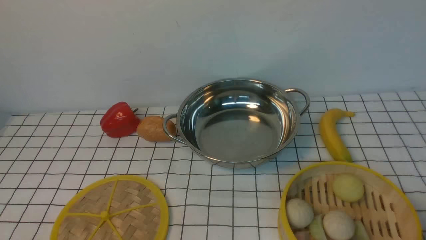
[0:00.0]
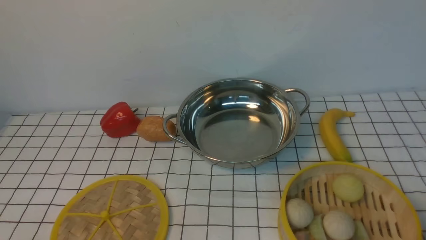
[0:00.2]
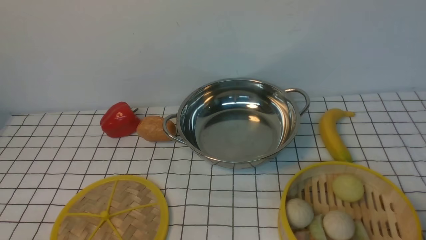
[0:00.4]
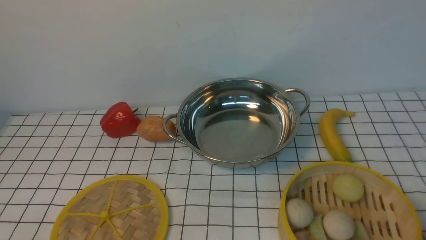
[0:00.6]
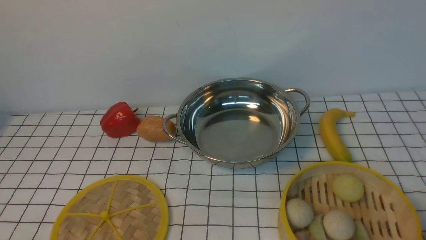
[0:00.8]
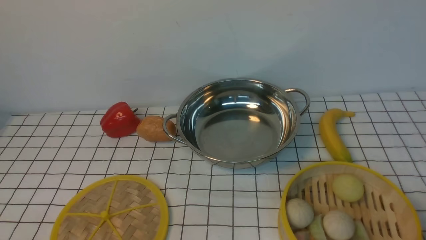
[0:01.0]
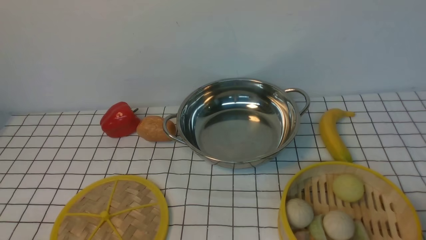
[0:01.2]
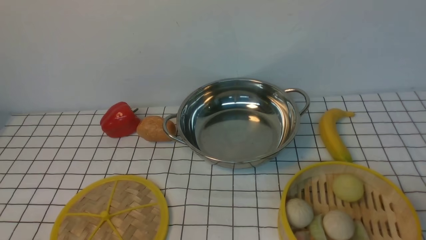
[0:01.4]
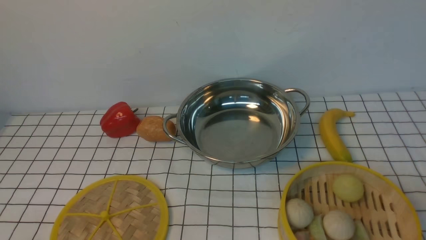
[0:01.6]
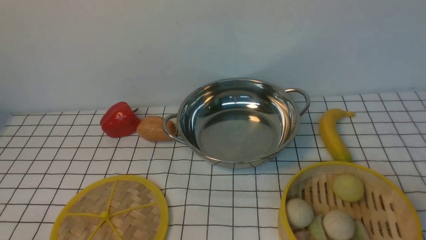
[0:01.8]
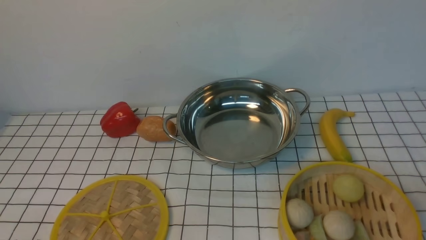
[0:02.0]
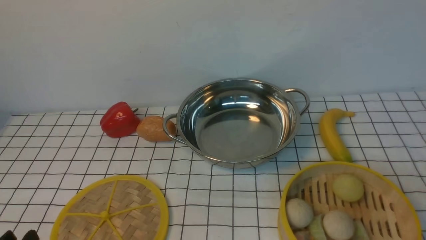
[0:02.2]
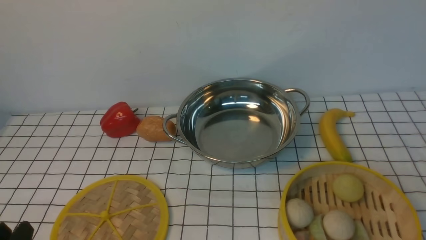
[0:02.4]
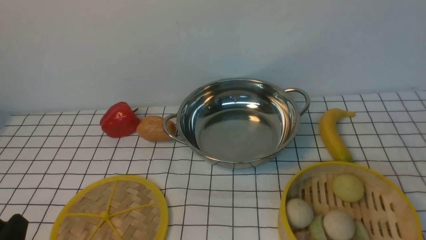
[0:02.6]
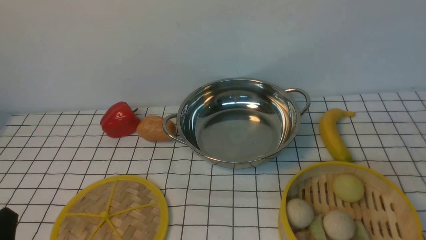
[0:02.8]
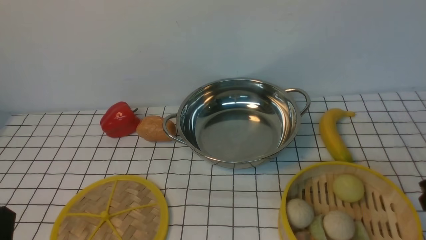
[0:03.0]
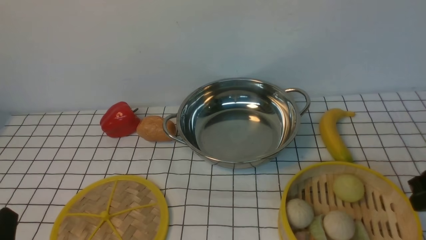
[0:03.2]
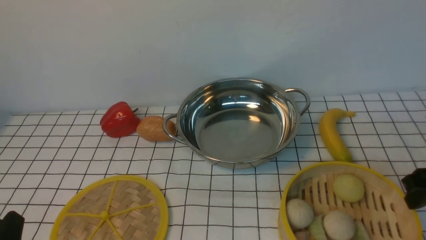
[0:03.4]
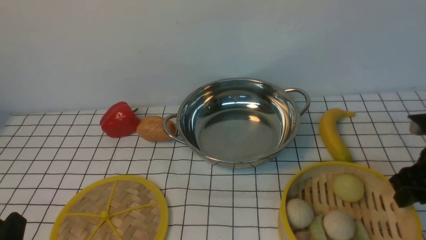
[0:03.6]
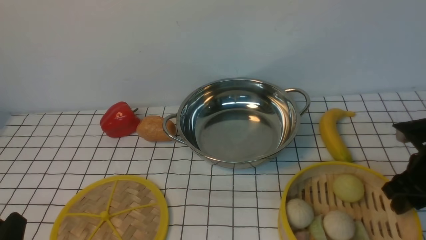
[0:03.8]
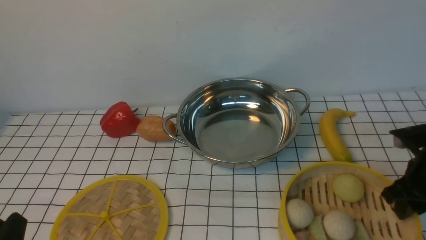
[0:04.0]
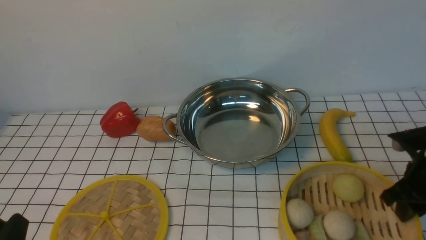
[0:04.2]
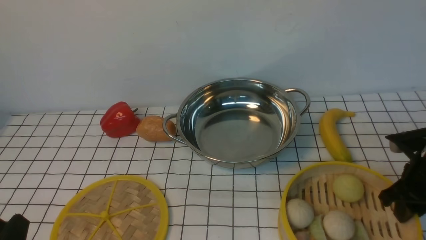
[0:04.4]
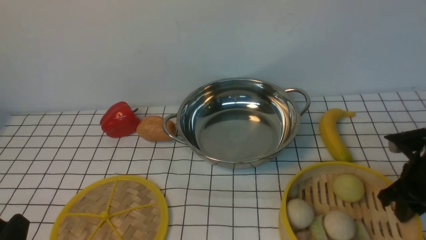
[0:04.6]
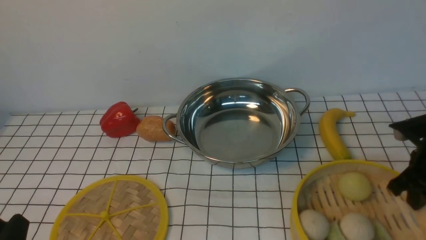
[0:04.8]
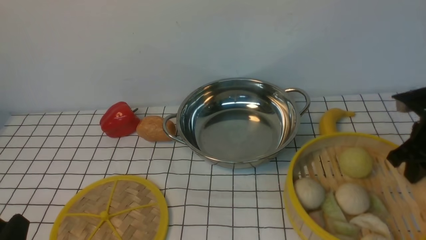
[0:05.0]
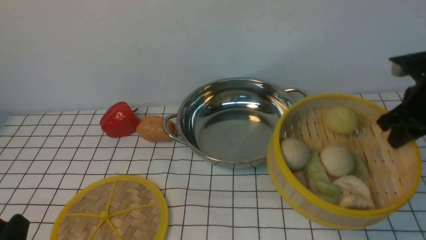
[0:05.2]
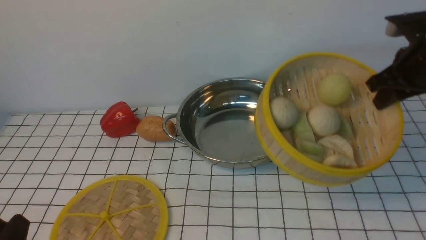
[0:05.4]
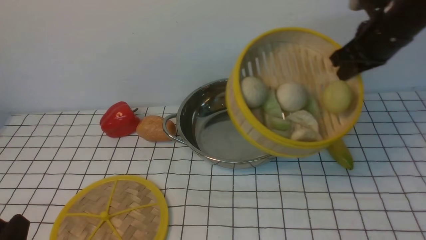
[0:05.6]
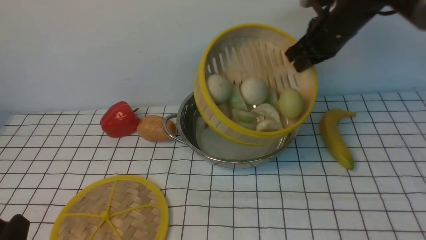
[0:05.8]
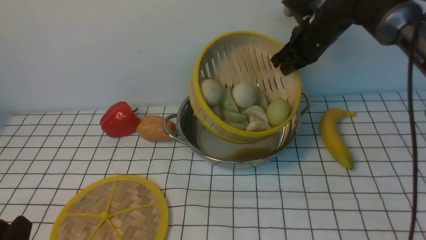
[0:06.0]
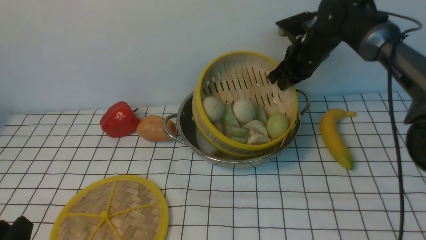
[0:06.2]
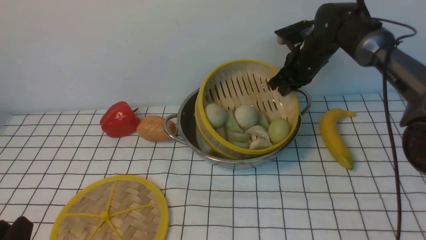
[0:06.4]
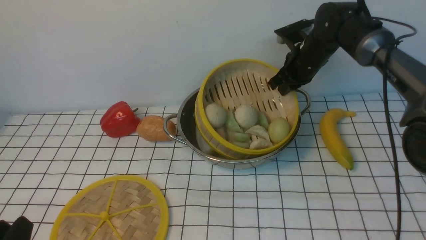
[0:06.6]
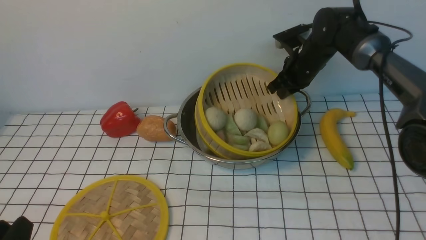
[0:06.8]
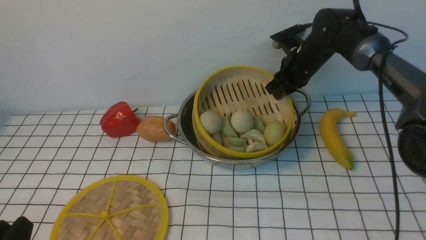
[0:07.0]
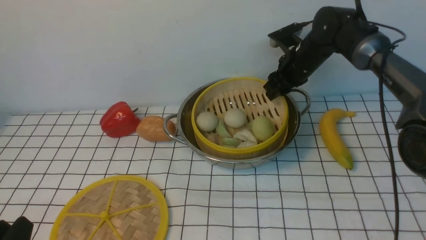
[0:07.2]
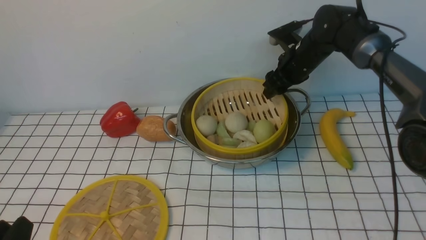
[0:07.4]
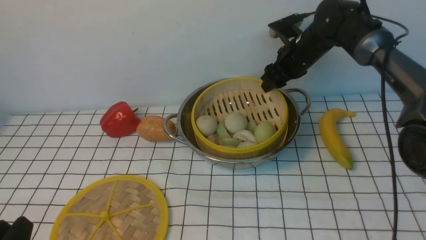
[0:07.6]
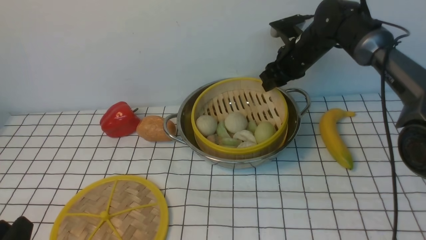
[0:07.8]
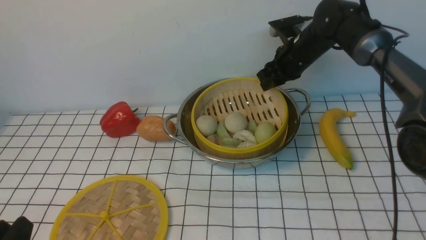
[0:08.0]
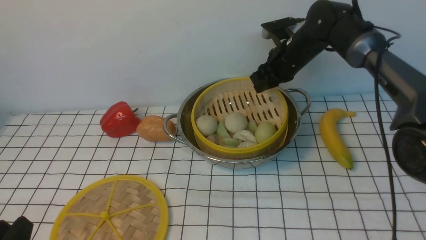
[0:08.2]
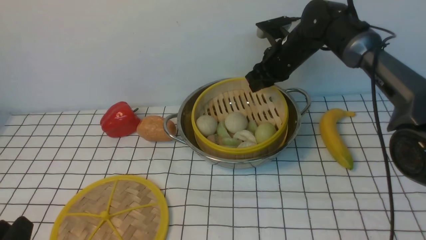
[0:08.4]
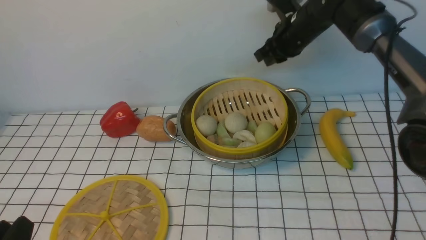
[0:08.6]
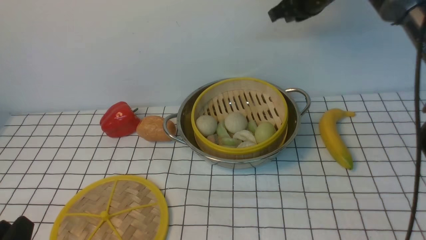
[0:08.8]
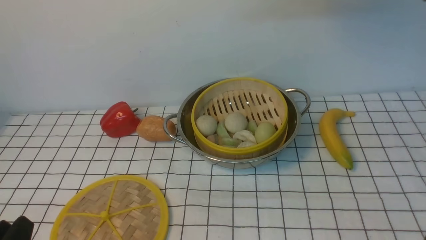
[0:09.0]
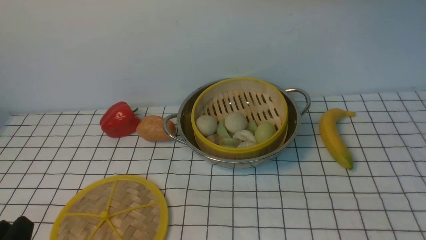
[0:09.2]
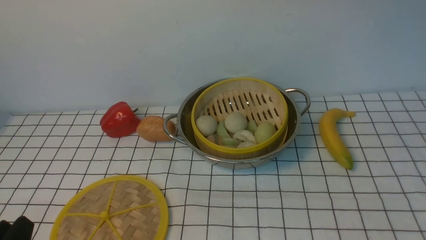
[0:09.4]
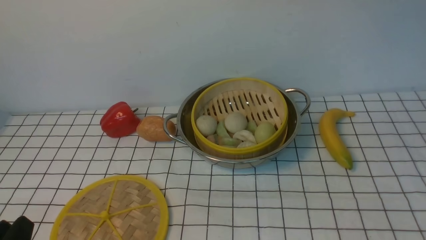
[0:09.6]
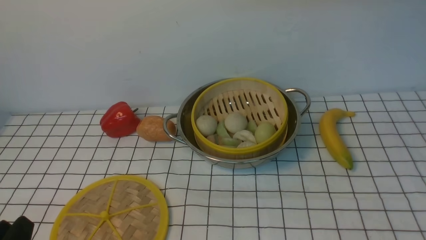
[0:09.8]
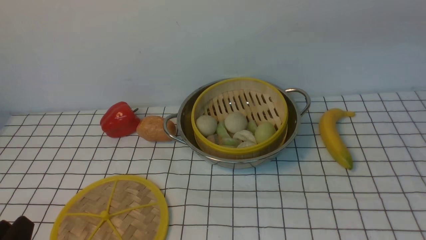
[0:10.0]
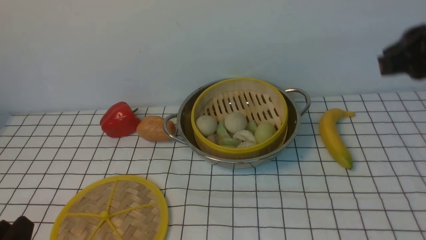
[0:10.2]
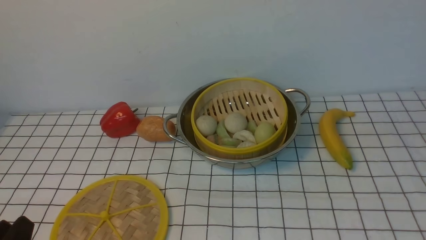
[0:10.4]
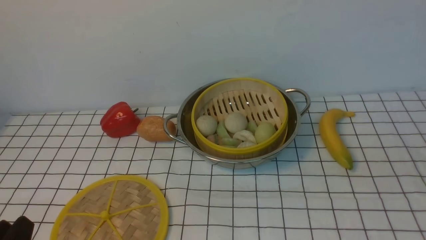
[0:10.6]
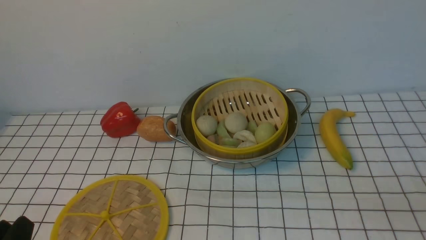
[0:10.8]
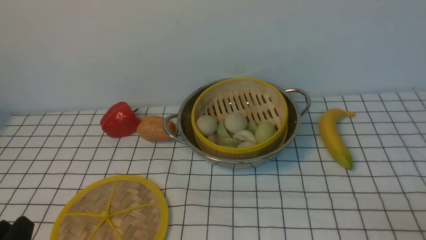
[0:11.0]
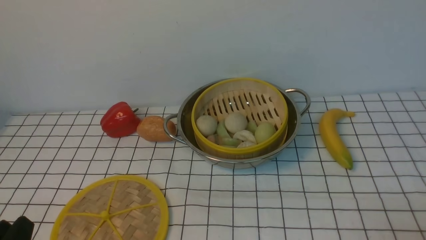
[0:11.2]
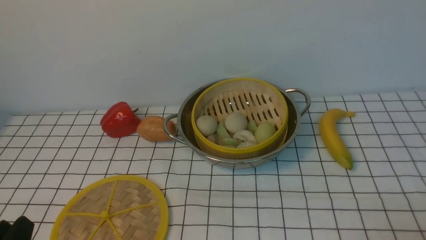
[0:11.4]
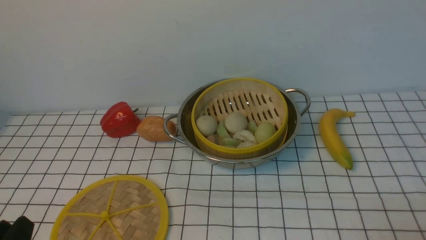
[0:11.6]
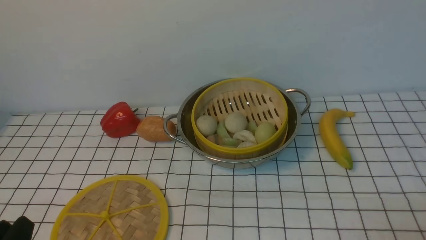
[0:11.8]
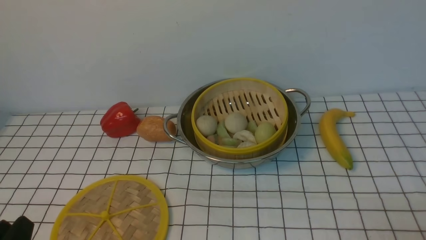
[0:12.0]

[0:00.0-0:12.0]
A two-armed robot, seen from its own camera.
Task of the whole recording: place the steamer in the pot on the white tablecloth, and put the lid on the steamer.
Step, 0:00.0 to 0:04.8: use the right arm to lift the steamer closest to it.
Step, 0:05.0 to 0:08.4: use the right arm to put the steamer into the iron steamer pot in the middle.
0:03.0 to 0:04.4: The right gripper shifts about 15 cm downward and forward.
0:04.4 to 0:06.0: The right gripper heads forward, to the left and upward, covering roughly 25 cm, and closes its fingers.
0:06.0 to 0:07.6: The right gripper is displaced downward by some 5 cm, and opens up.
0:07.6 to 0:09.0: The right gripper goes roughly 15 cm upward, and closes its fingers.

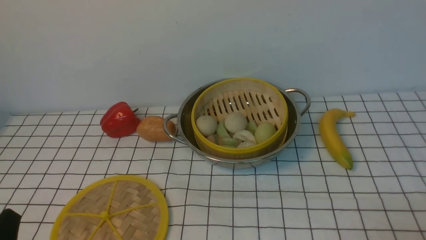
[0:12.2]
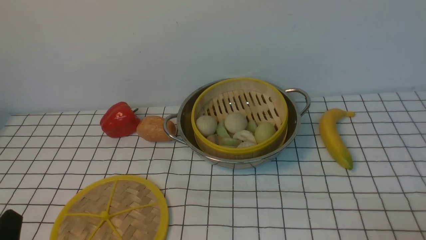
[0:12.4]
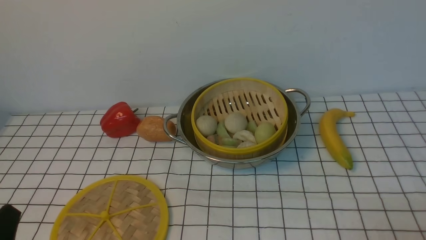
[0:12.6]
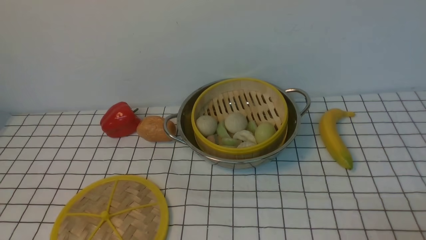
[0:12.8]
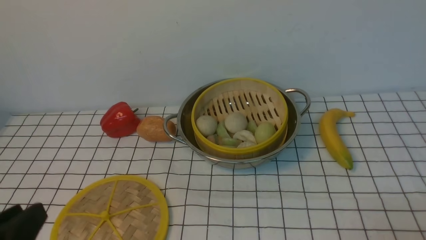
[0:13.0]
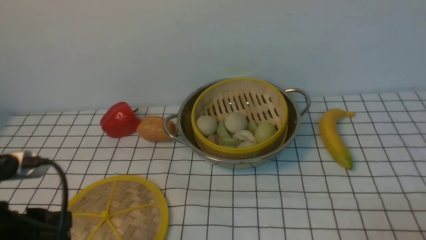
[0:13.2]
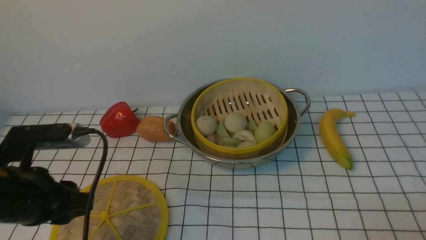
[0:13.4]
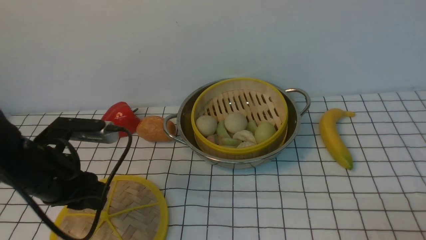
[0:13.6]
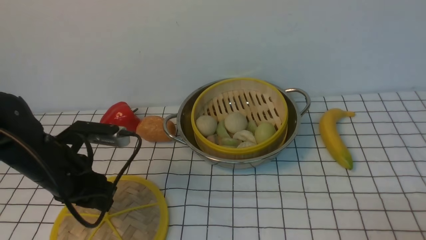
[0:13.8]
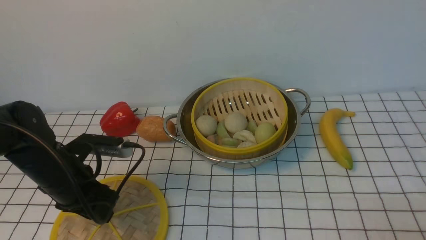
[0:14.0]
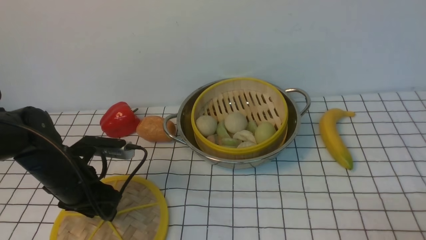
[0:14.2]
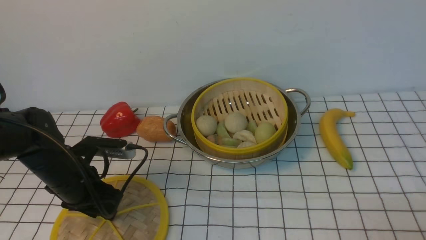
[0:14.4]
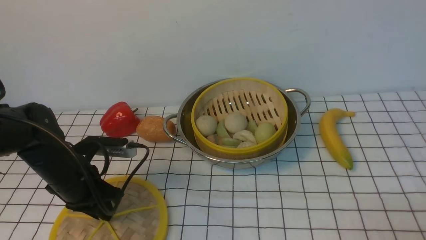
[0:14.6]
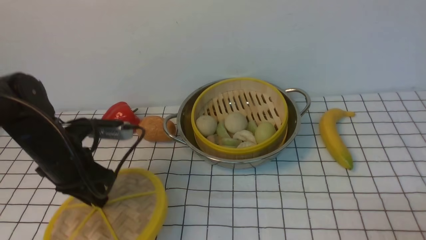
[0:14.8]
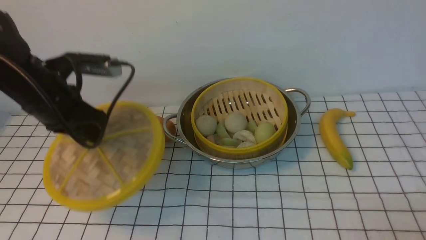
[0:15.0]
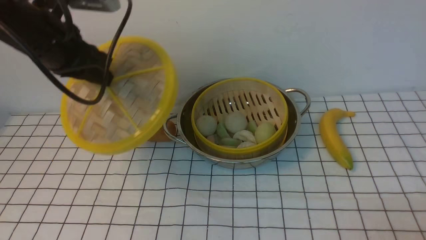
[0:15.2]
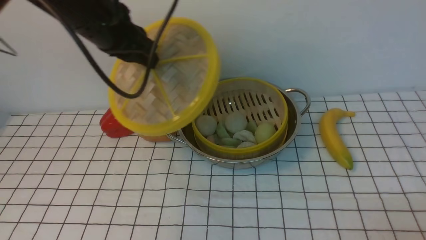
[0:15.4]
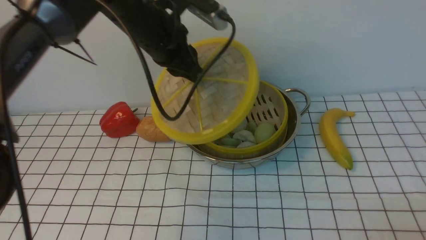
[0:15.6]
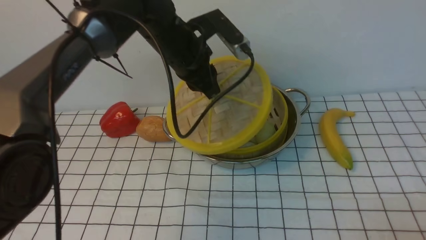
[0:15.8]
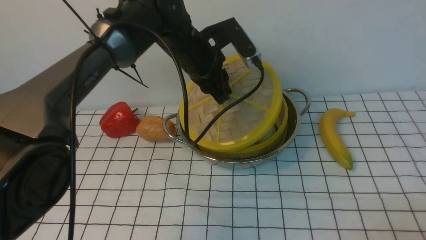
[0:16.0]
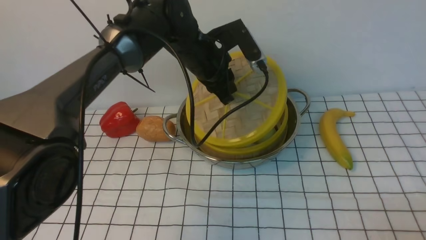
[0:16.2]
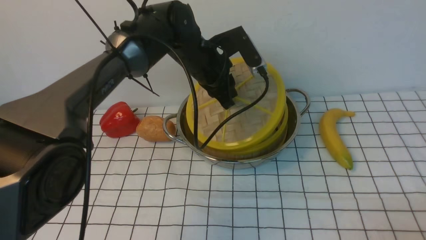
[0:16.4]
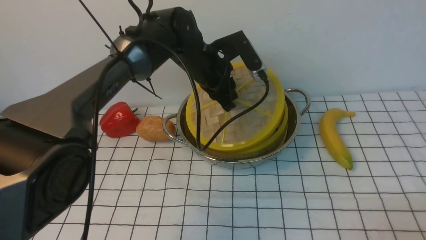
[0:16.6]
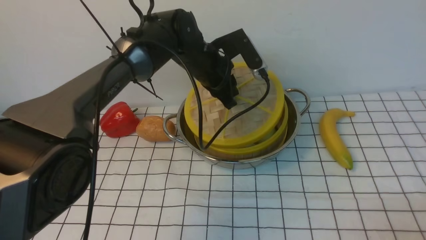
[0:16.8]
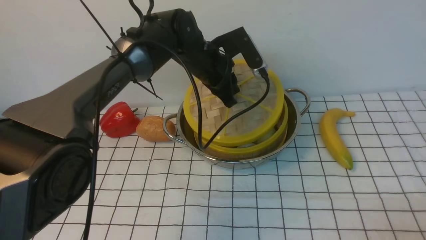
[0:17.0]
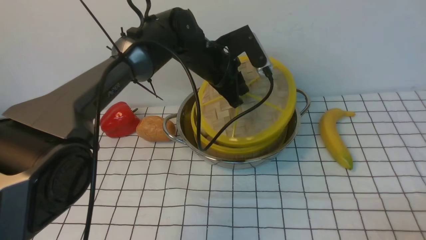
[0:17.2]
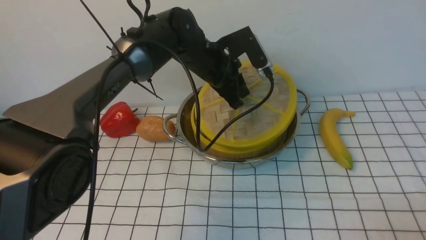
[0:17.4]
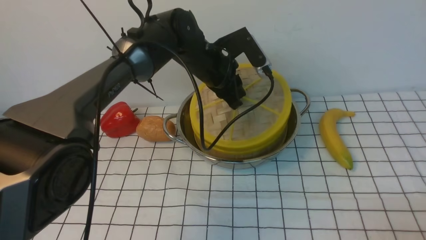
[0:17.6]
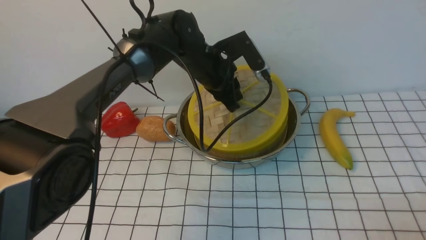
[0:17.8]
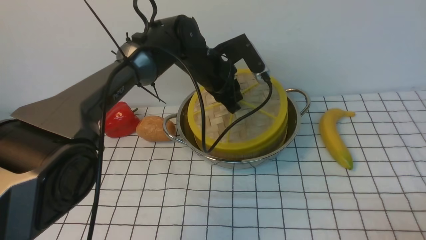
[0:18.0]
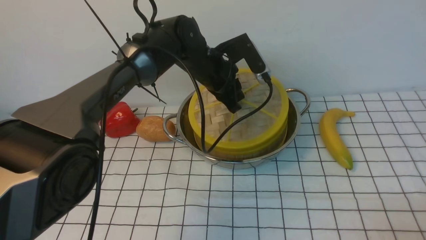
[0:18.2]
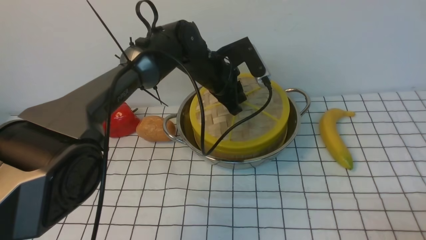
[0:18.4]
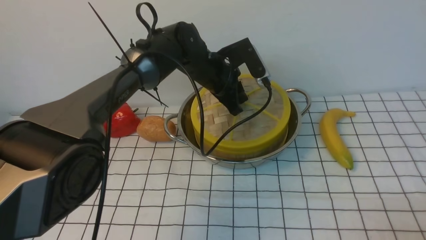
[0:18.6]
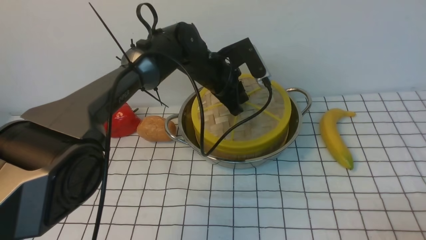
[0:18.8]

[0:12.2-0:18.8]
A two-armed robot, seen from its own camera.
Task of the whole recording: place the steamer in the pot on the white tablecloth, and put the lid on the steamer.
Step, 0:12.2 to 0:14.6: use the left arm to lift the lid of the steamer.
0:12.2 to 0:13.8: The left gripper shifts some 20 cm forward.
0:13.8 to 0:15.4: The left gripper goes some 20 cm upward and forward.
0:15.4 to 0:17.2: The left gripper moves to the right, downward and forward, approximately 20 cm.
0:17.2 to 0:18.8: The grippers stay close to where they were, moving slightly.
